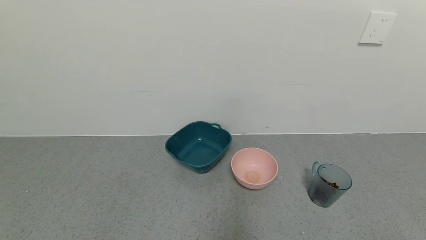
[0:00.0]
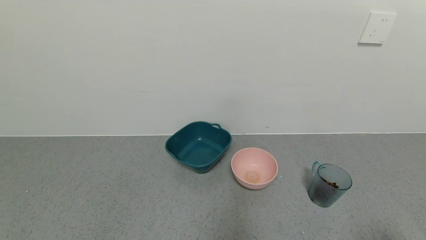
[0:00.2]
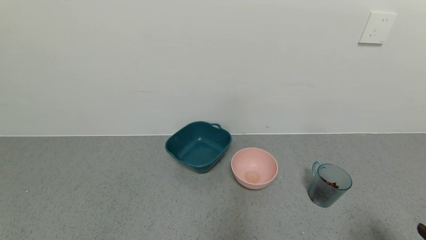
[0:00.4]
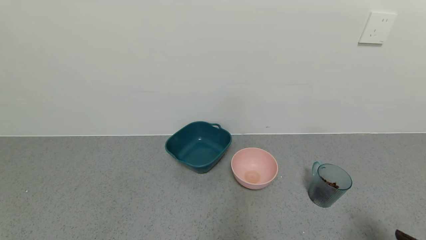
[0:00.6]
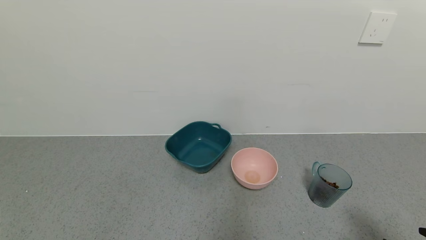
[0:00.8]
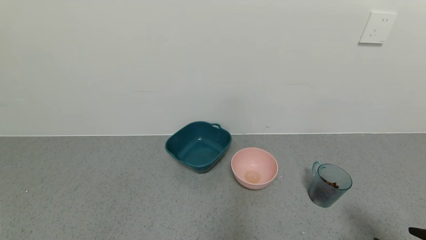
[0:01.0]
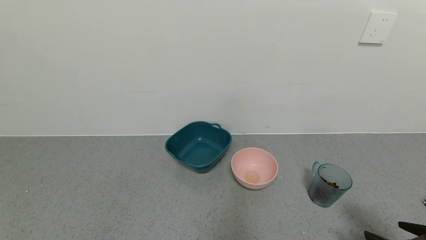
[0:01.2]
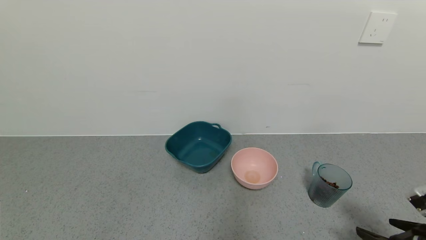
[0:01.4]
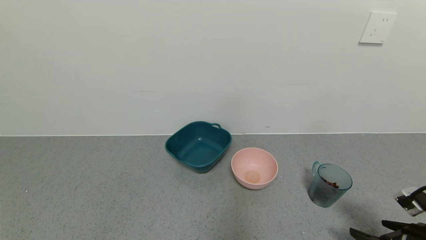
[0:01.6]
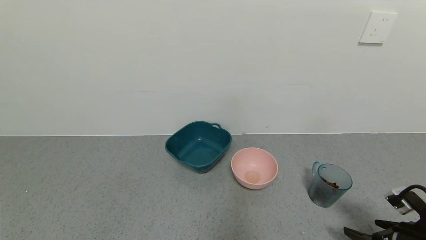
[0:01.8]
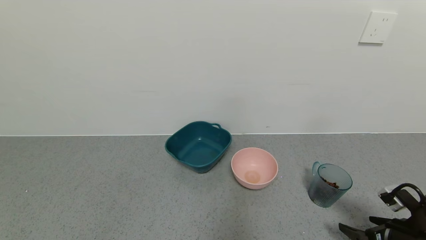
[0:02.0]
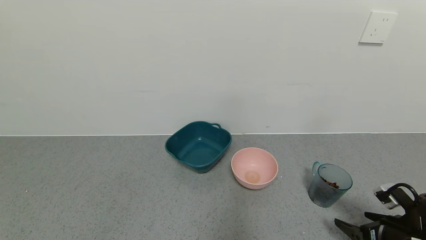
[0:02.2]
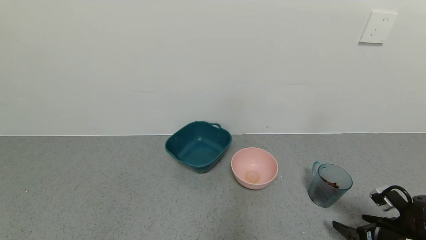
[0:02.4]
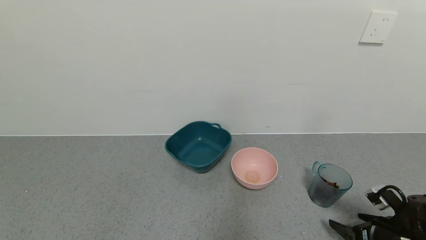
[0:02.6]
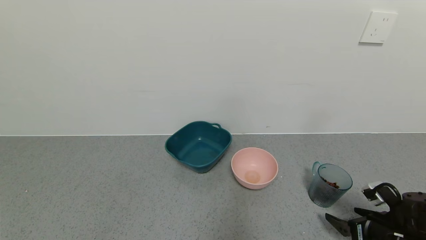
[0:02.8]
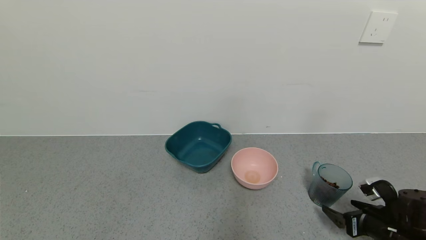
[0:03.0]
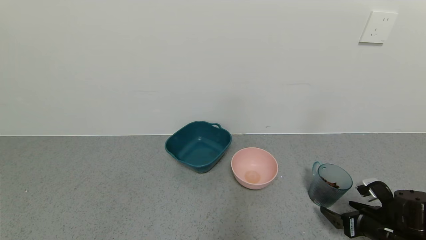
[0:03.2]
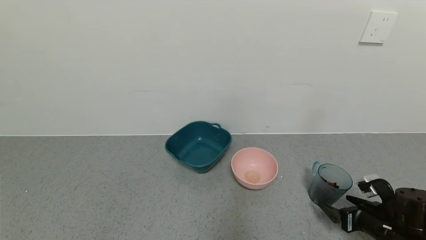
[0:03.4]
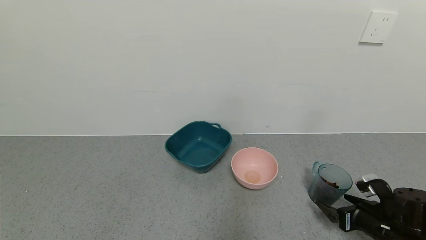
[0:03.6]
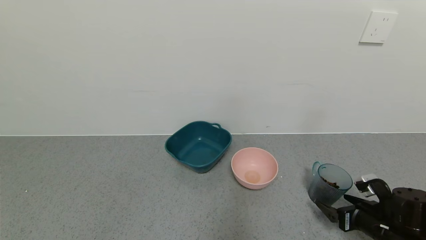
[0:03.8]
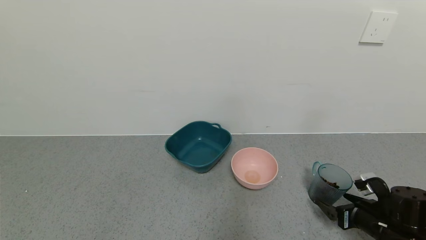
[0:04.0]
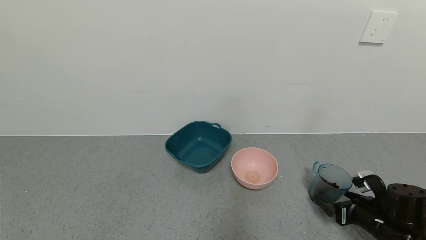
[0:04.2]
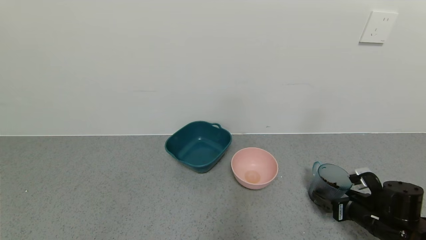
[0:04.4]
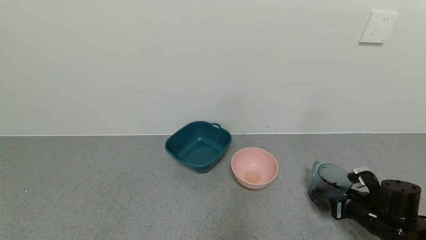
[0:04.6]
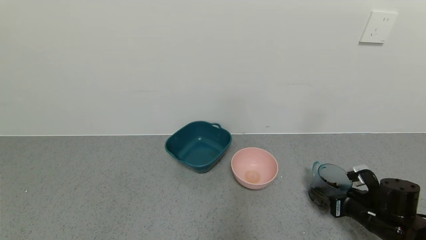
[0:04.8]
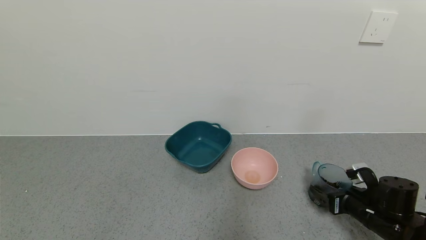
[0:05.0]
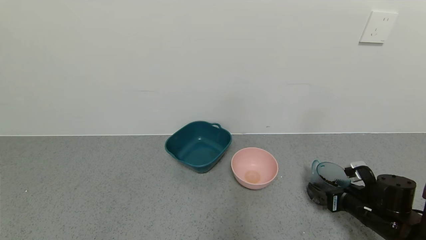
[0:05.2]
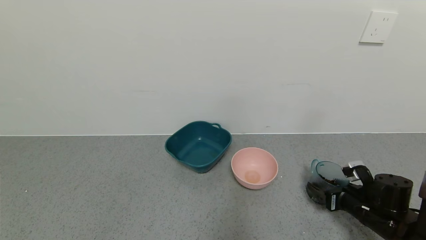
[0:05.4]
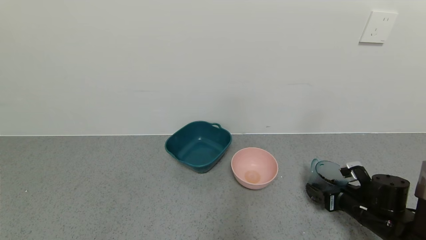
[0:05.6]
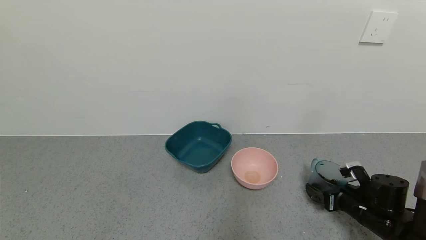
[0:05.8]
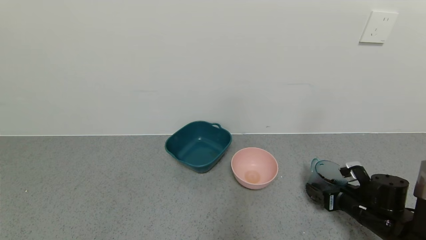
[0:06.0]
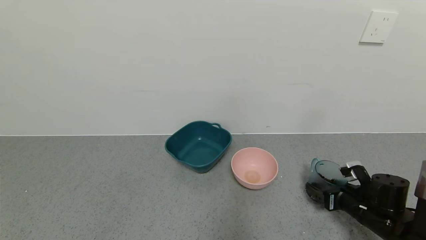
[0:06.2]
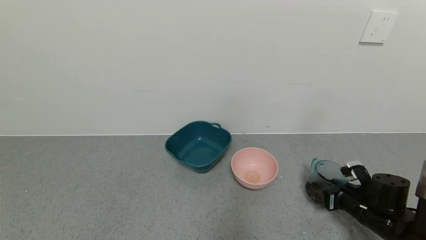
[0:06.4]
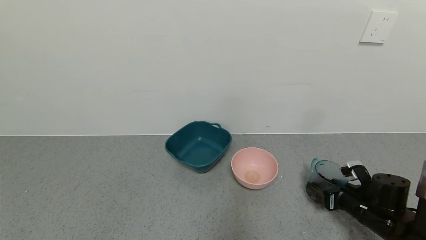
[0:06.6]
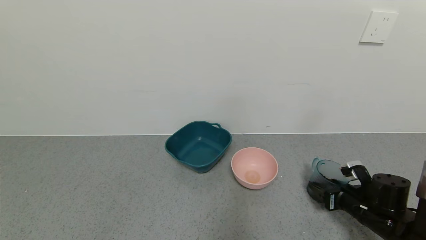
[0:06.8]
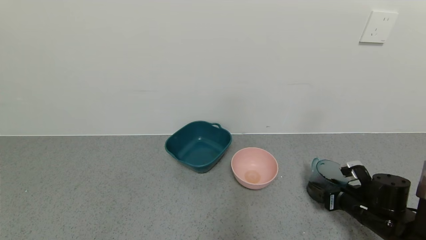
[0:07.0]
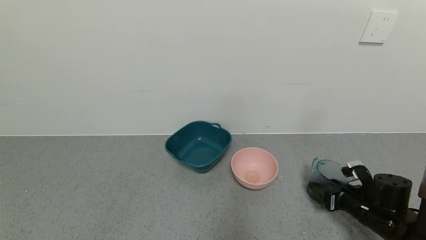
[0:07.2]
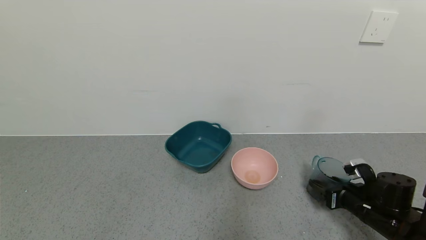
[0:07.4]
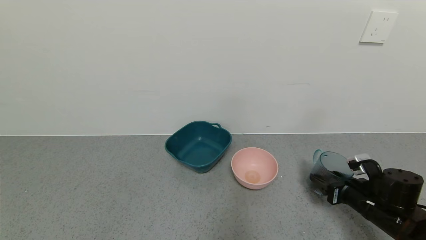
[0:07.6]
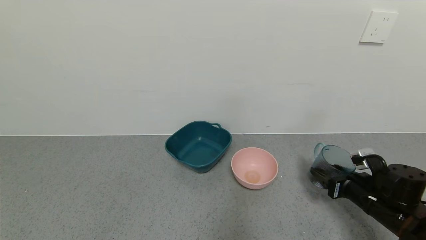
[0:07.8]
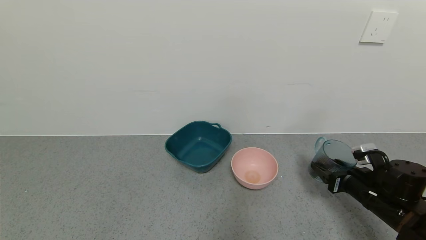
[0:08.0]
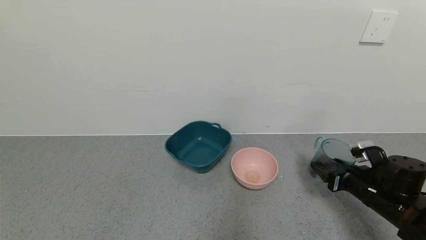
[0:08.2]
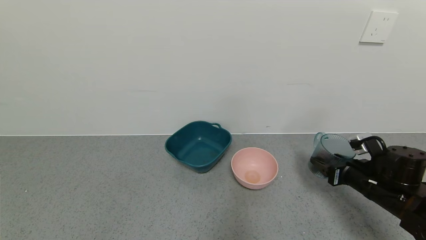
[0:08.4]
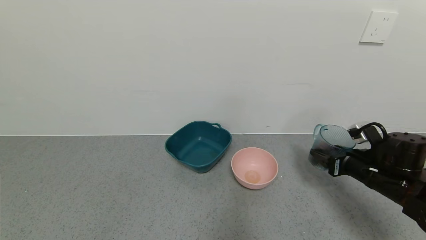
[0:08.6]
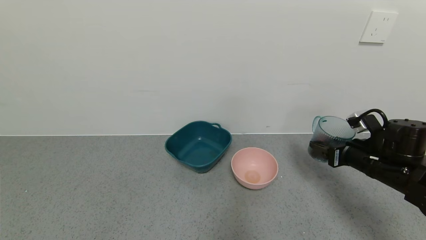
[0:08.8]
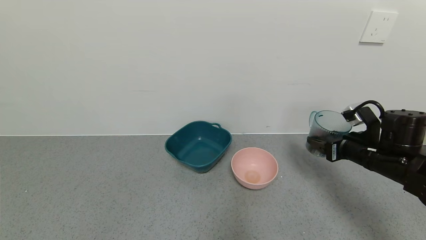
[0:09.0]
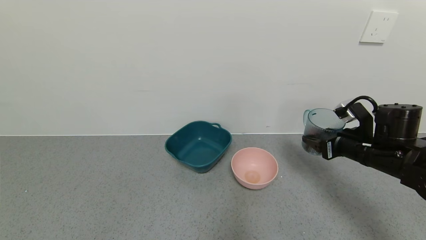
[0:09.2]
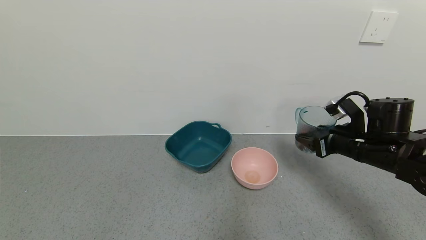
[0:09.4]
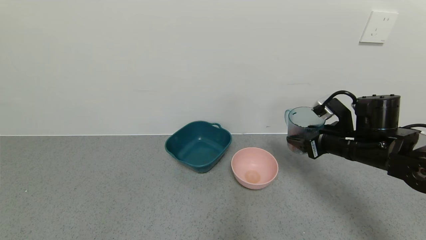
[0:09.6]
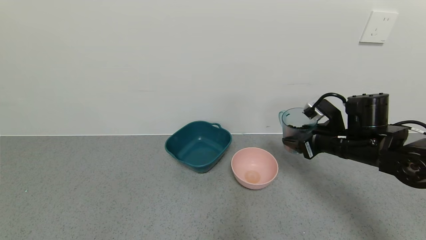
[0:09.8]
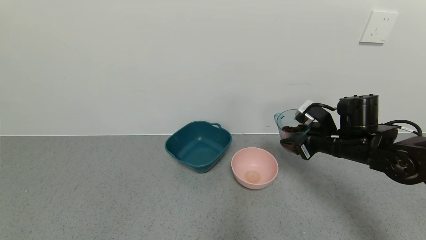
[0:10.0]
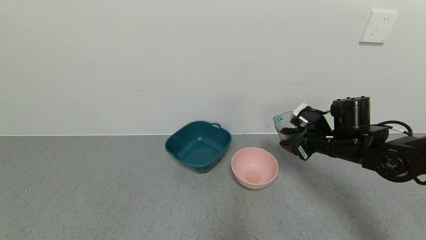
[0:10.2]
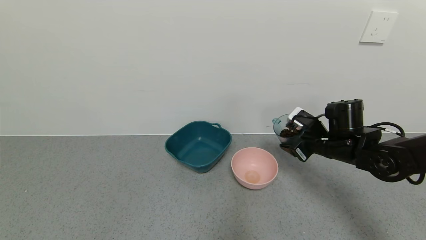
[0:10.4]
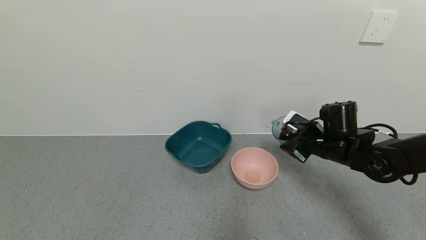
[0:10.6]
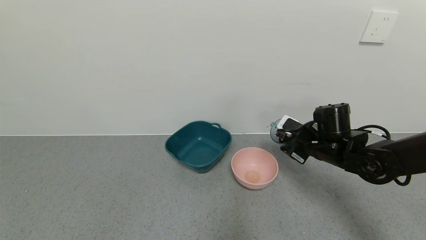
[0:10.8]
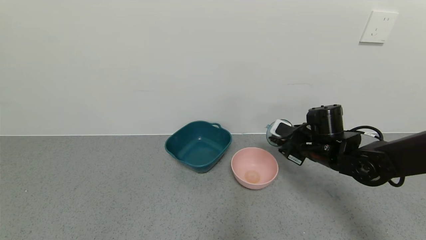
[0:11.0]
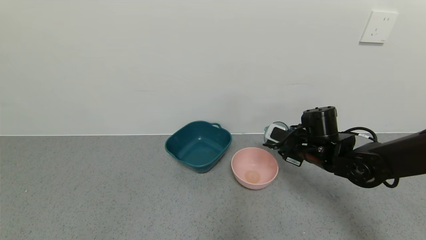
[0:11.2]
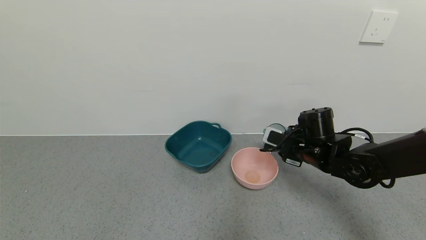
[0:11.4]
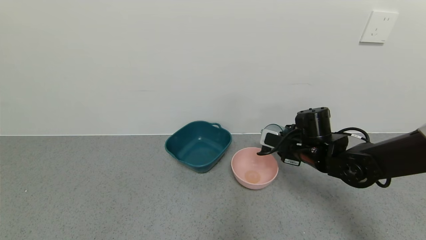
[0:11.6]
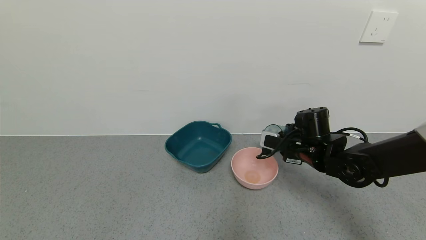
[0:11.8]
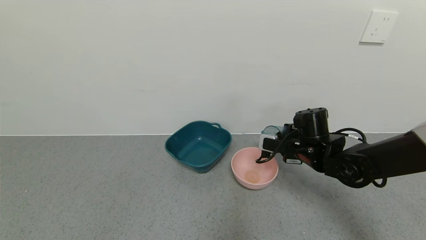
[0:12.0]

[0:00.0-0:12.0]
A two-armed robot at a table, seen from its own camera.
Task of the whole recording: use a gripper to pick up the cup and pour the solid into a bowl or tray.
Step, 0:00.0 to 0:07.2: Grasp the glass of coffee beans with the right gripper.
0:00.0 to 0:01.6: The right gripper goes approximately 15 cm forward.
0:01.6 to 0:03.0: The right gripper is displaced forward and downward by roughly 10 cm.
0:03.0 to 0:06.0: There are only small adjustments of the grippers.
0:06.0 to 0:07.6: The right gripper closes its fingers.
0:07.6 to 0:09.0: The right gripper moves upward, about 10 cm.
0:09.0 to 0:10.4: The right gripper shifts approximately 5 cm to the left.
0:10.4 to 0:12.0: The right gripper changes place by roughly 5 cm.

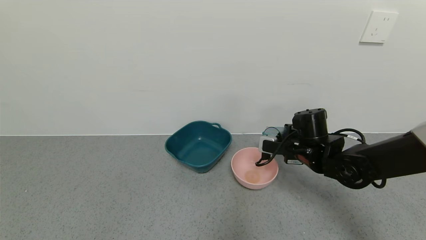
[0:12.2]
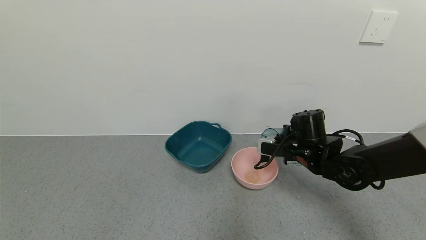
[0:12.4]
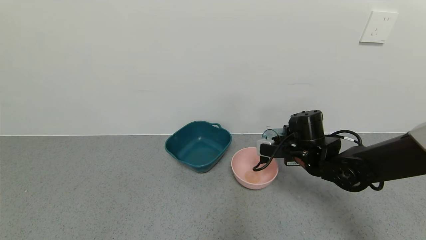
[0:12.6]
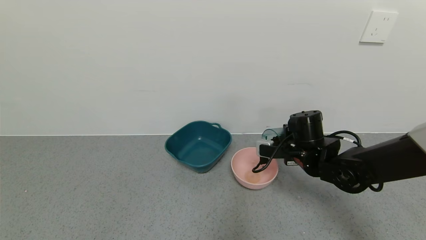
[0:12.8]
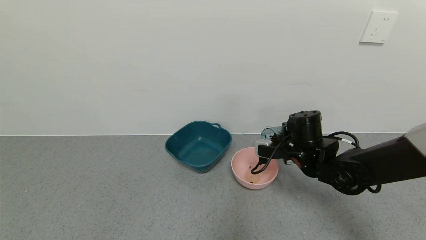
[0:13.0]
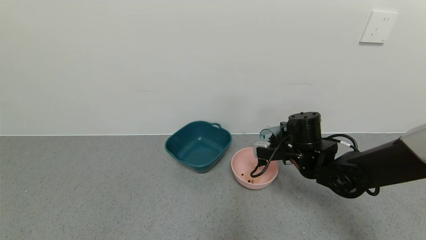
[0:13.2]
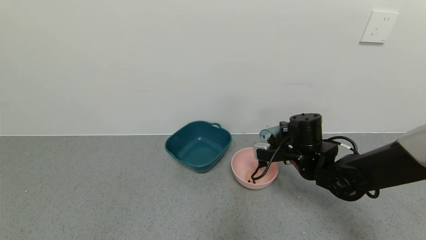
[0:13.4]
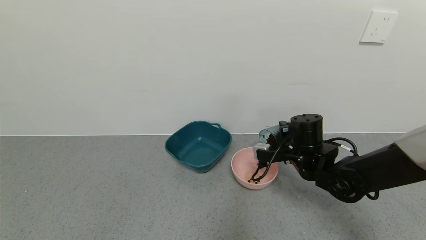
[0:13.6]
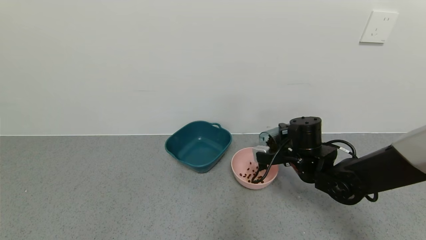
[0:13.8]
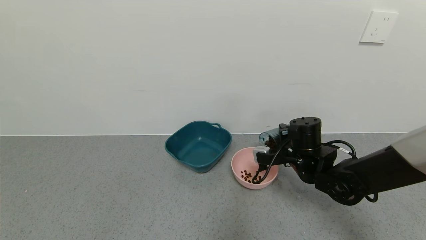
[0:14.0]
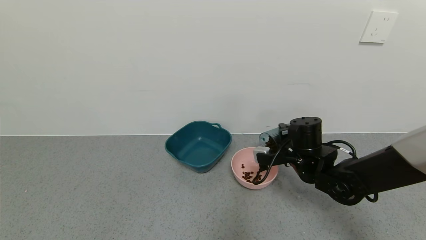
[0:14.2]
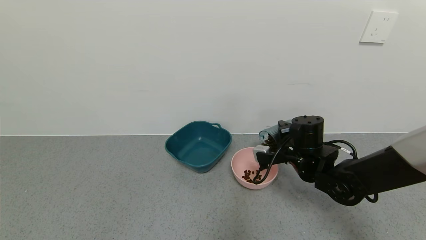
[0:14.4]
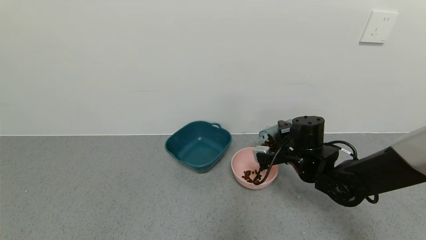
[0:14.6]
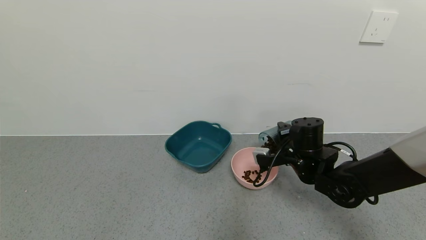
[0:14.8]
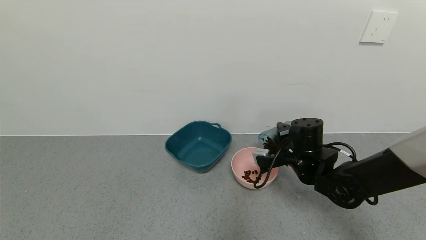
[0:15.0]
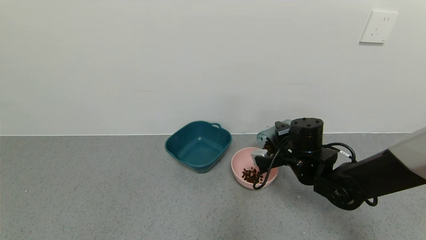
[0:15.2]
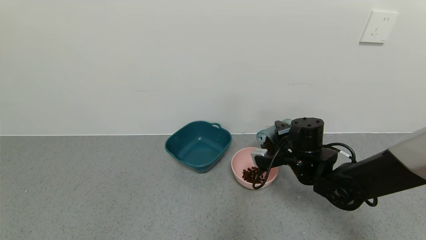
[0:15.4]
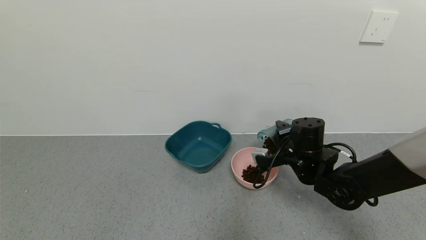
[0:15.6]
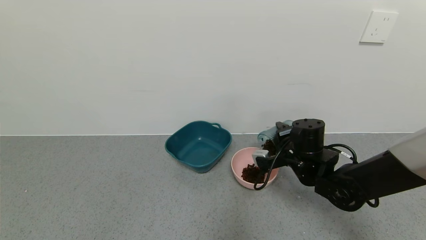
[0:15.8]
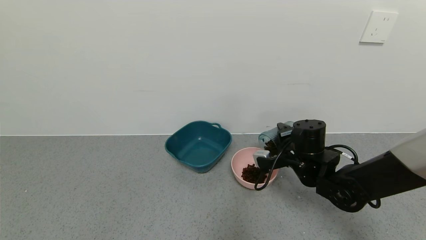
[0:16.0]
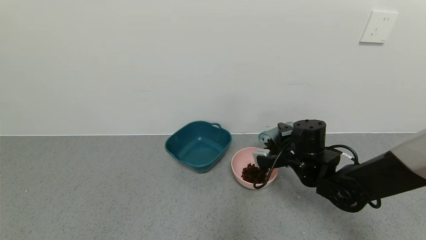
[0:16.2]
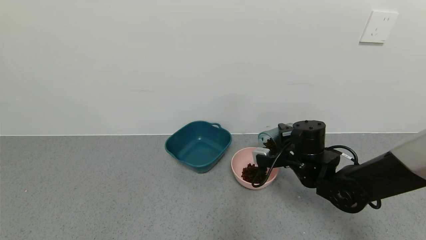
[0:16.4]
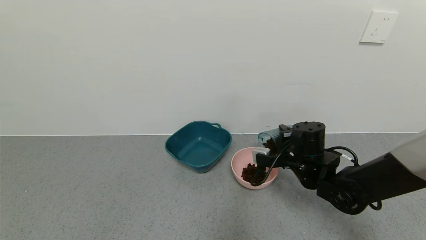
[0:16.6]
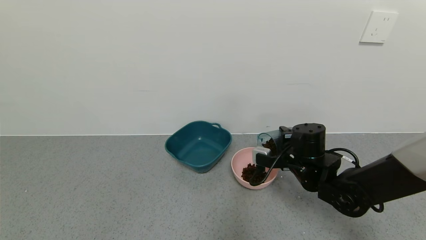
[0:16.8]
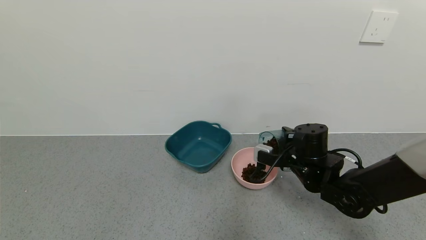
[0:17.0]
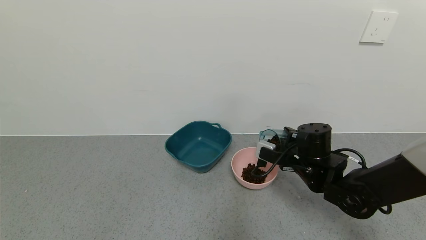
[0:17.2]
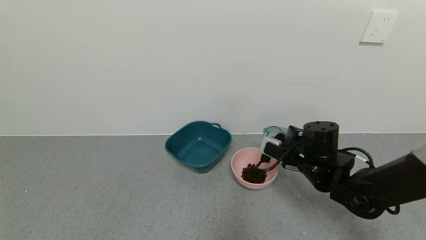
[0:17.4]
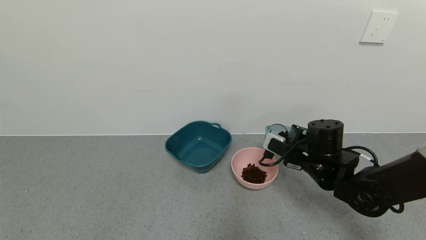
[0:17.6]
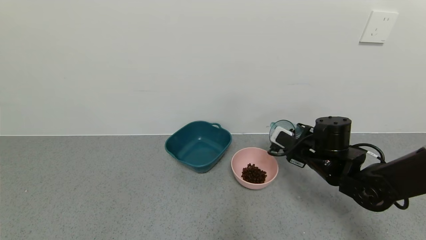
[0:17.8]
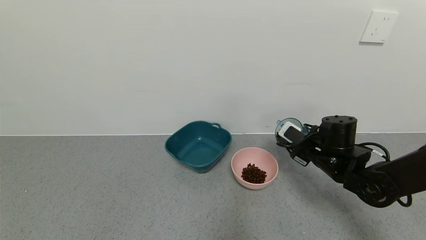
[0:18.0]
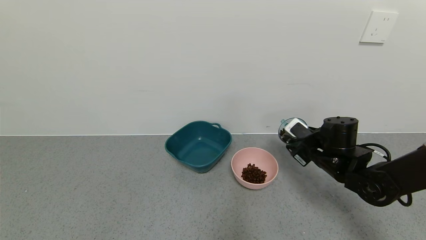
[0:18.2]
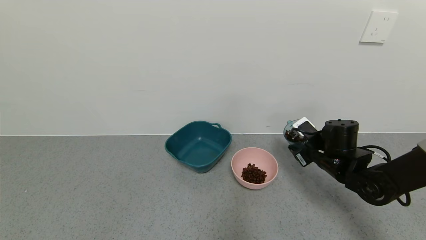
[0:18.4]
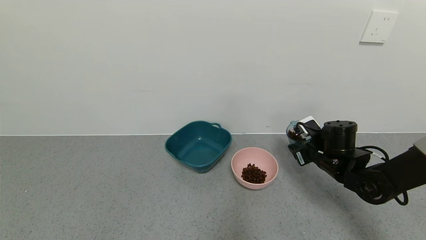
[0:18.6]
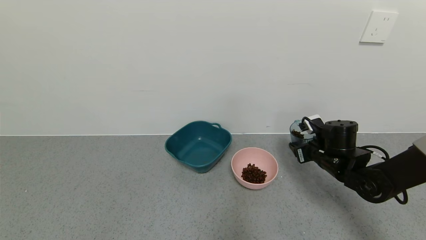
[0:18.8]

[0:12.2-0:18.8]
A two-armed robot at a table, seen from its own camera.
Task of the whole recording: use a gripper to pick up the cup and pour the solid into a bowl or tray.
Step, 0:12.2 to 0:18.4: Pour the coffee beans into the pink bowl with the right gripper.
0:12.2 to 0:13.8: The grippers stay close to where they were, moving slightly.
0:13.8 to 0:15.4: The grippers move only a little.
0:17.2 to 0:18.8: The right gripper shifts roughly 10 cm to the right.
